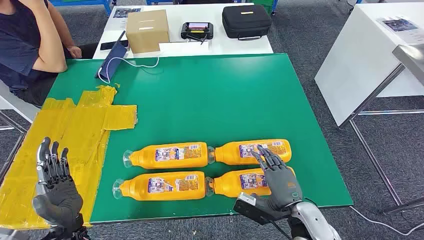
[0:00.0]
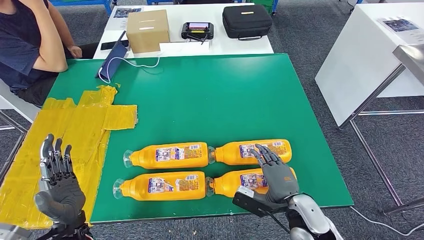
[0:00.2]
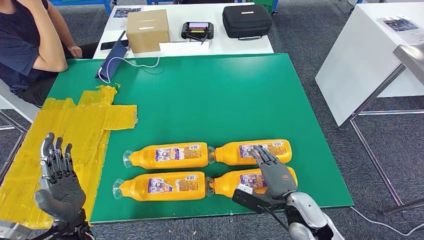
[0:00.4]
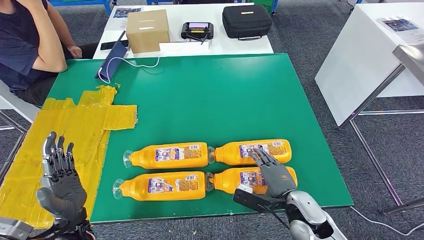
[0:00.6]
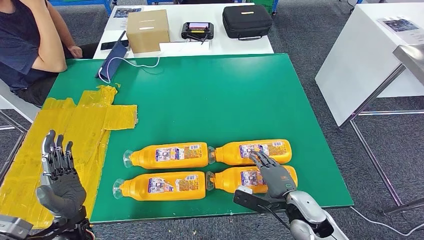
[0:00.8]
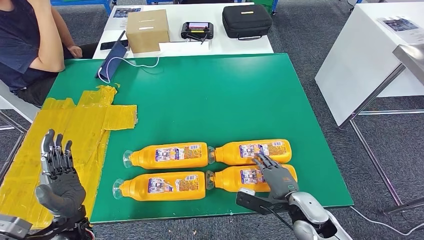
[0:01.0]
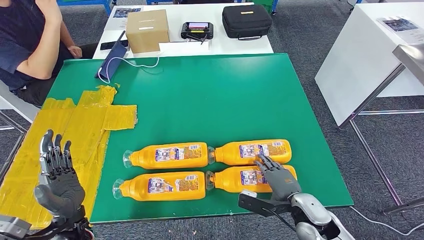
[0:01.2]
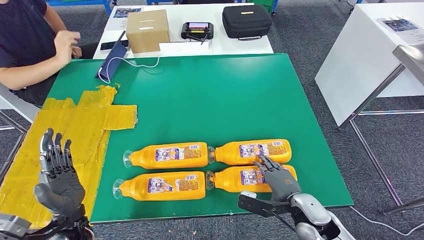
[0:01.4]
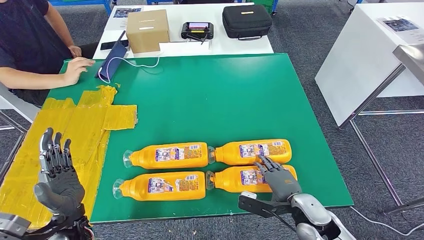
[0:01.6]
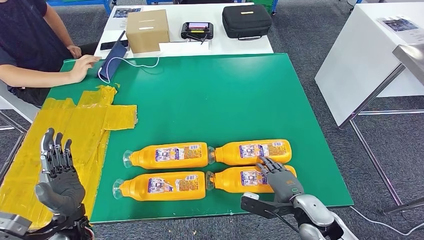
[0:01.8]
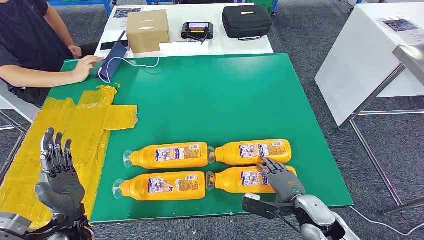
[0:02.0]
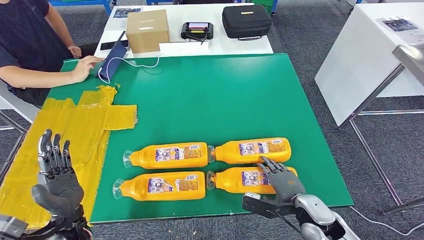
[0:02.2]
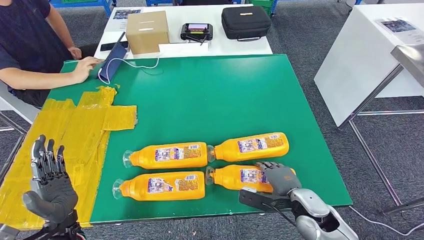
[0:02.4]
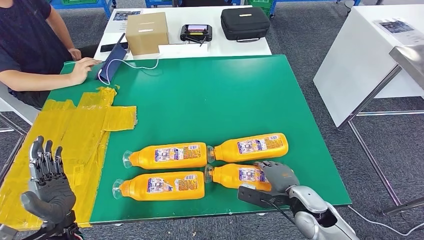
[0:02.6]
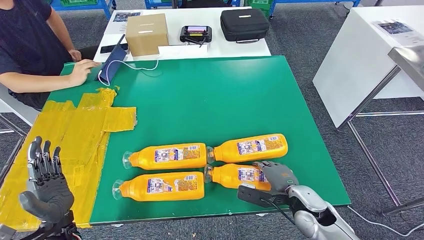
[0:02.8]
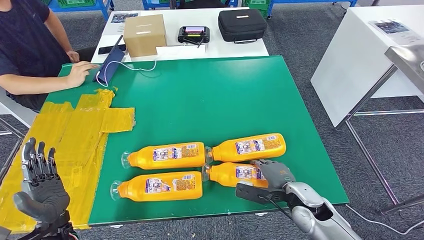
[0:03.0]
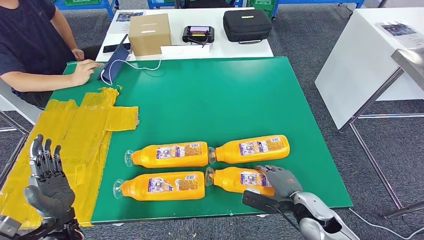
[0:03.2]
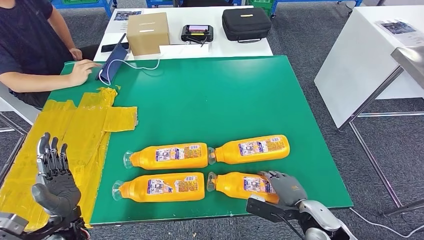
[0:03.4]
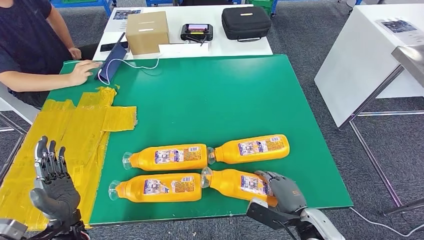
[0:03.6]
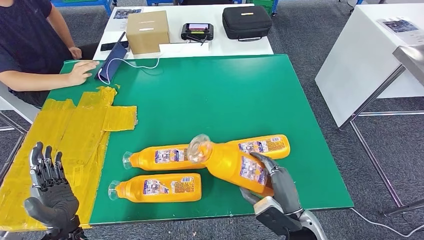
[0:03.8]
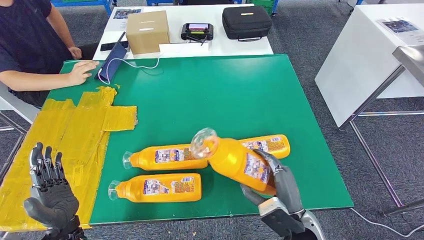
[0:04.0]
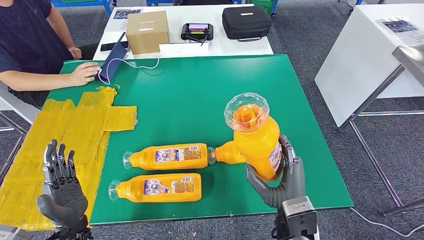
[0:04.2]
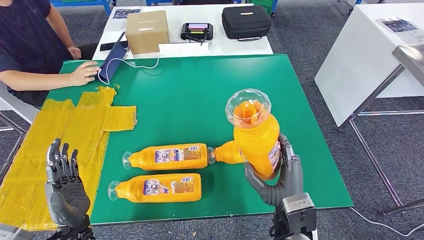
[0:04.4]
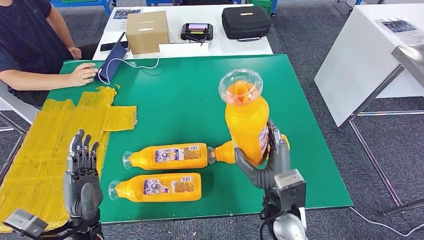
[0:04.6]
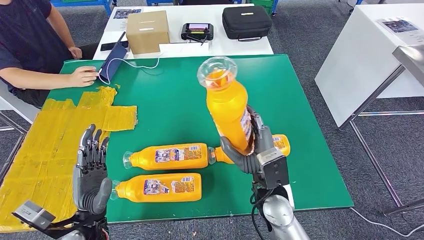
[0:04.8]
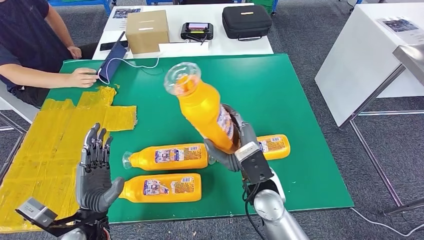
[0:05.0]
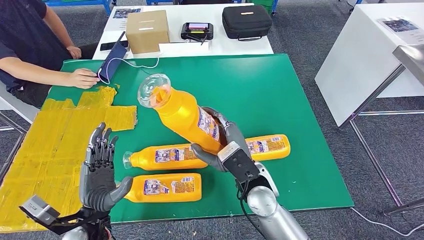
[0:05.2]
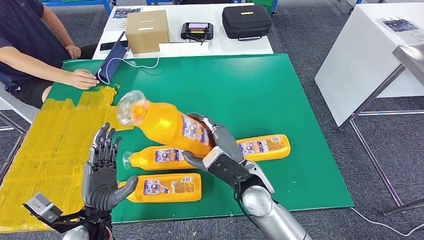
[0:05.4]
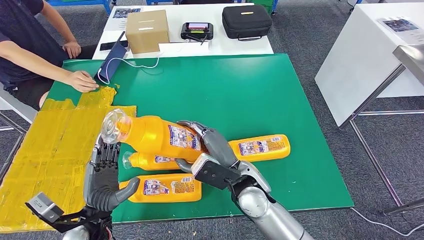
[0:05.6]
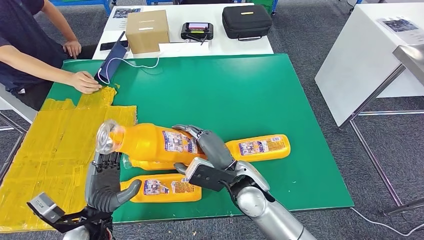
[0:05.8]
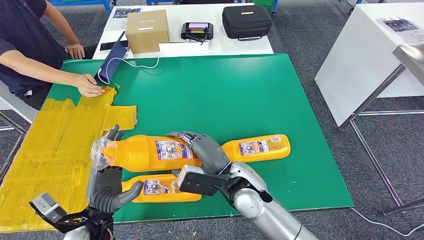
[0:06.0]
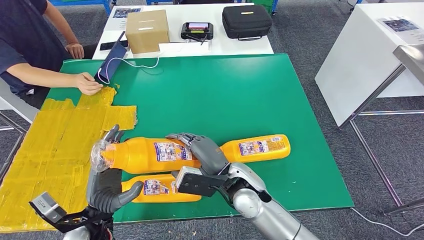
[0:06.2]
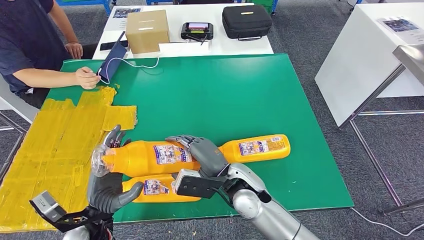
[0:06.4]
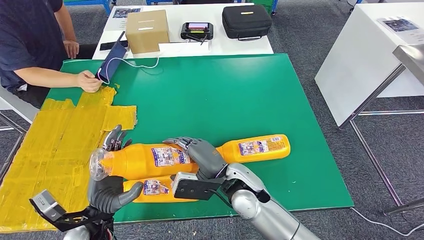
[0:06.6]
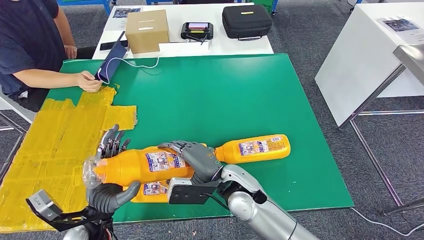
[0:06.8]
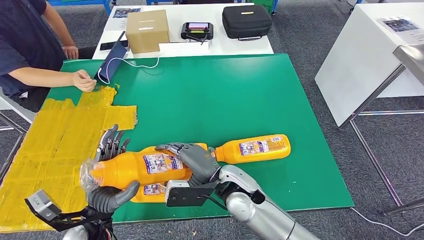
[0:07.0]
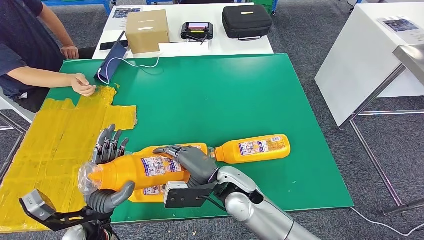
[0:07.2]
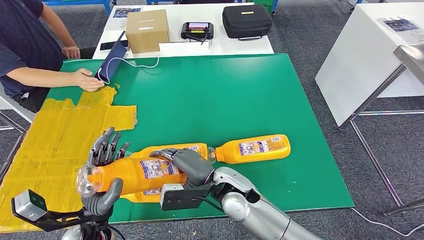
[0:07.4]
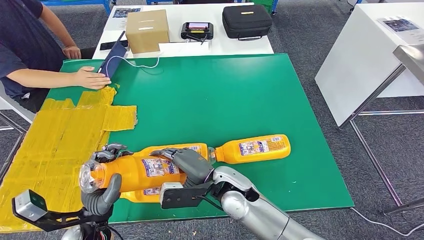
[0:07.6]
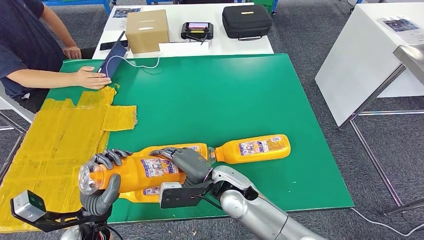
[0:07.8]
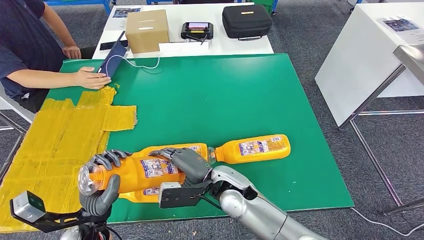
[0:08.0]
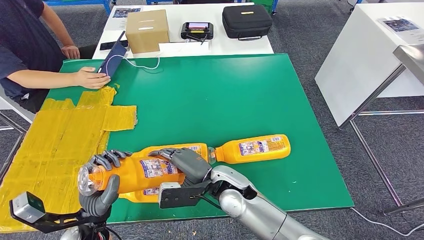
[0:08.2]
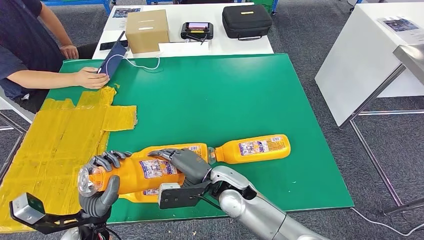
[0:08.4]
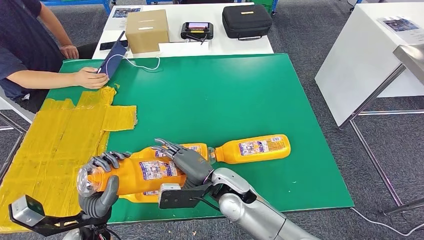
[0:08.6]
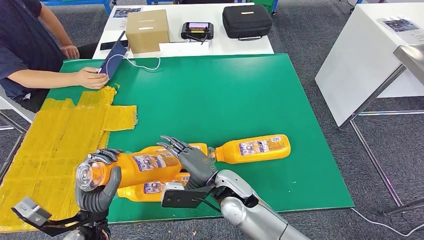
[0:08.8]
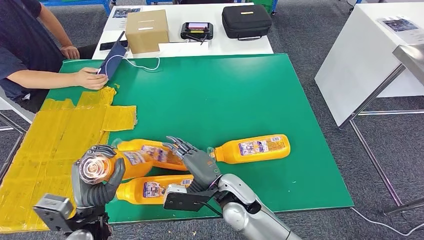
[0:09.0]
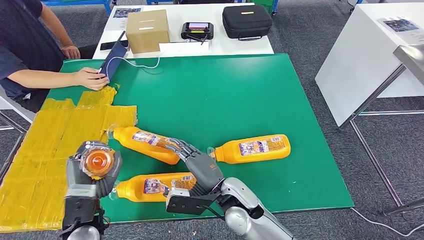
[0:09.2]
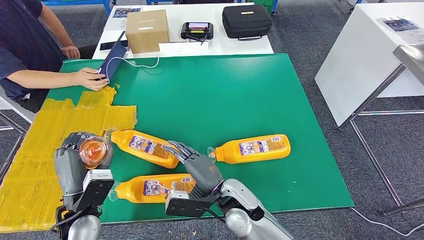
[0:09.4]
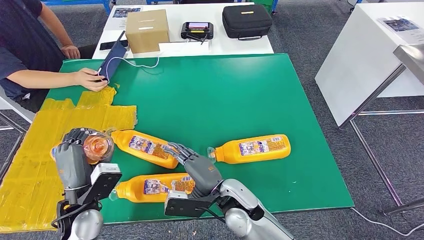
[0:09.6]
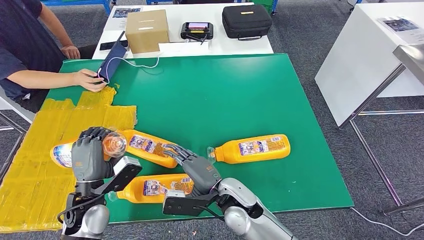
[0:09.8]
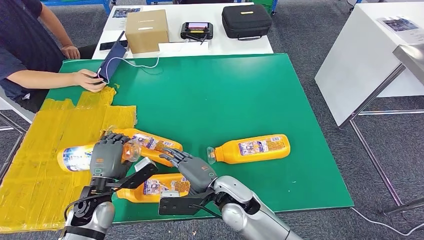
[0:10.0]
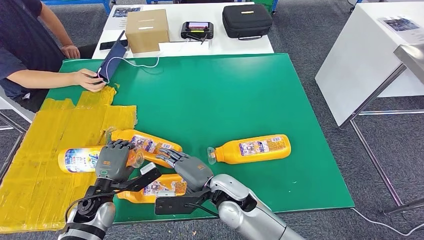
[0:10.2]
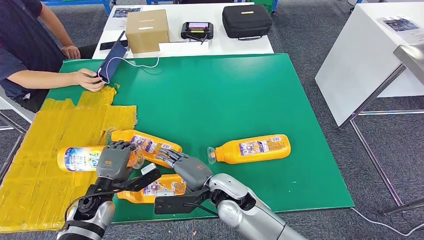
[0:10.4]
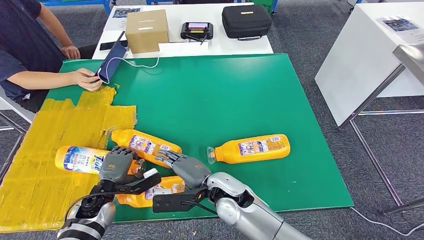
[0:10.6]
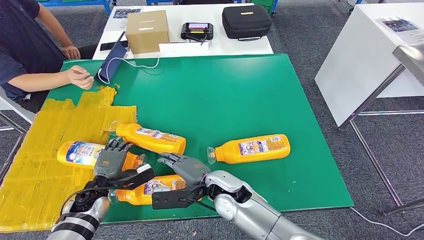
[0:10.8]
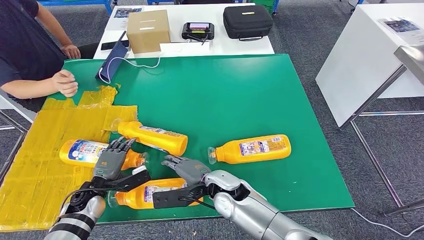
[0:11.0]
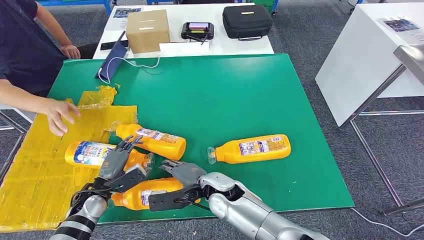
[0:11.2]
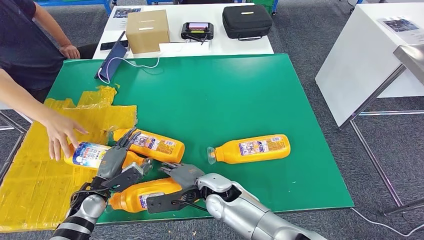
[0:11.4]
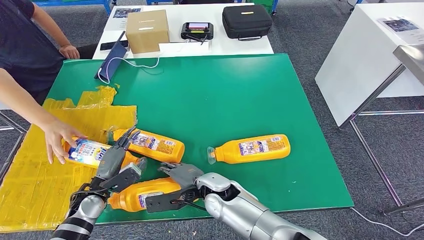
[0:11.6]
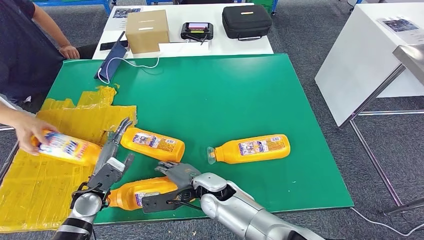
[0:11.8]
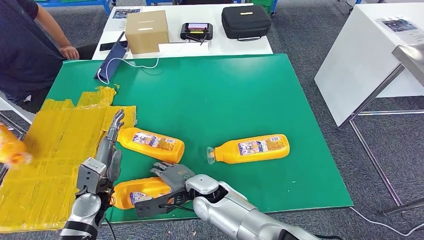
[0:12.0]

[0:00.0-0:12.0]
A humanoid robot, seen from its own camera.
Step, 0:00.0 to 0:04.0: Take the fast-moving consumer goods bottle from the table.
Step, 0:05.4 to 0:11.4: Flip the fast-moving consumer goods bottle to the front side.
0:06.0 to 0:07.6: The hands make only small movements.
0:09.0 to 0:10.4: The left hand is displaced forward and downward by approximately 10 cm.
0:10.4 to 0:12.0: The right hand heads to the left, covering about 5 cm.

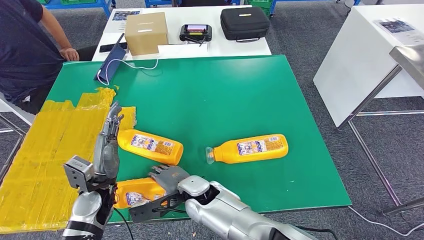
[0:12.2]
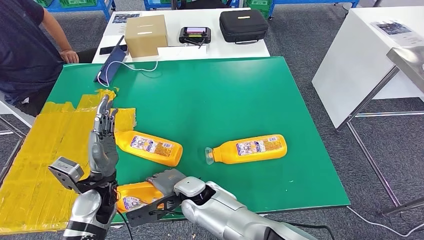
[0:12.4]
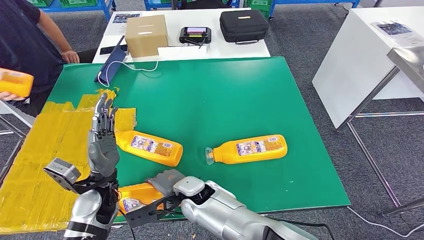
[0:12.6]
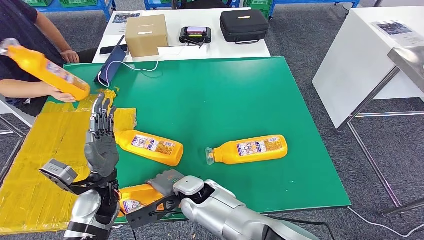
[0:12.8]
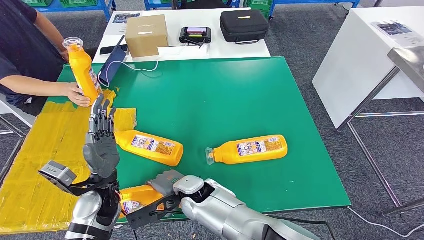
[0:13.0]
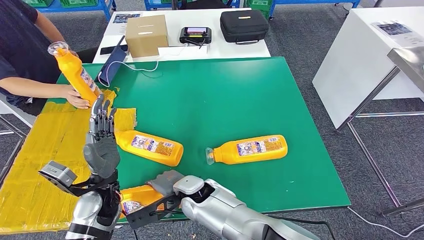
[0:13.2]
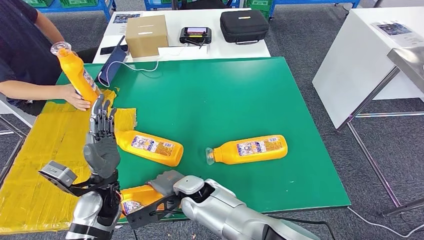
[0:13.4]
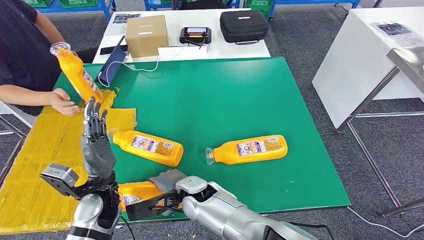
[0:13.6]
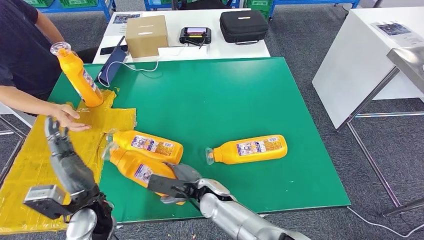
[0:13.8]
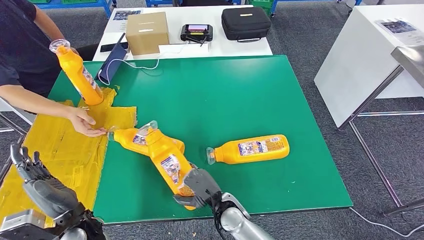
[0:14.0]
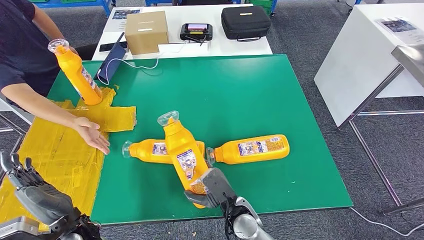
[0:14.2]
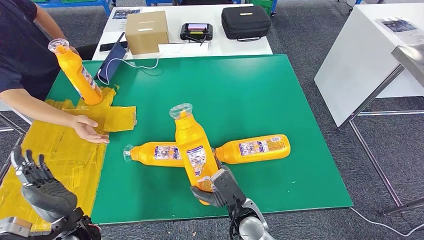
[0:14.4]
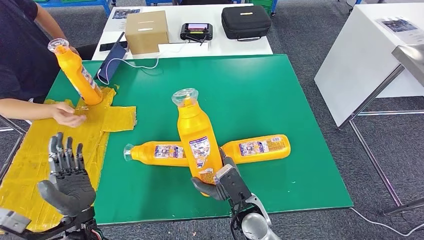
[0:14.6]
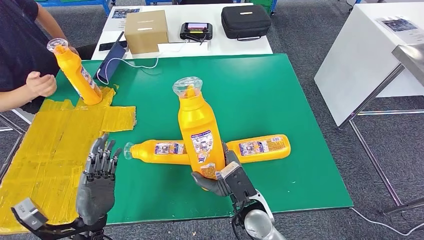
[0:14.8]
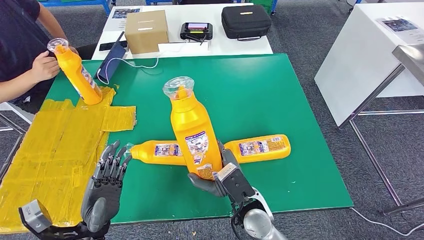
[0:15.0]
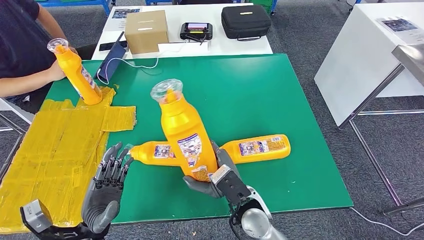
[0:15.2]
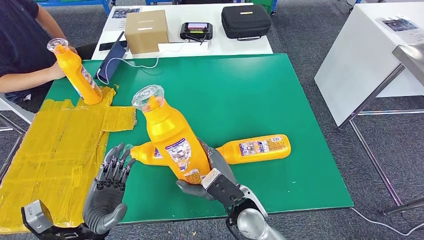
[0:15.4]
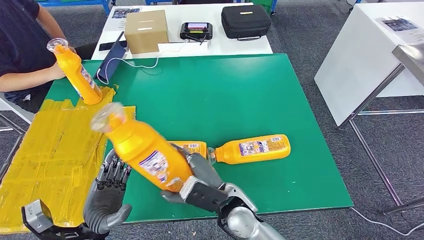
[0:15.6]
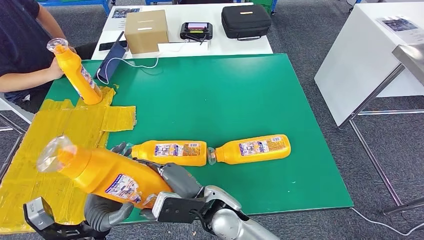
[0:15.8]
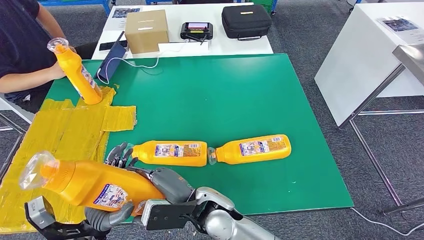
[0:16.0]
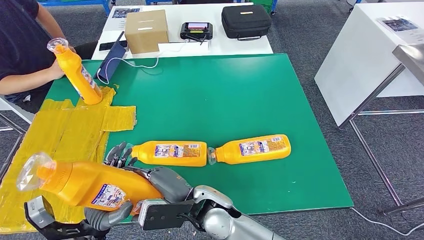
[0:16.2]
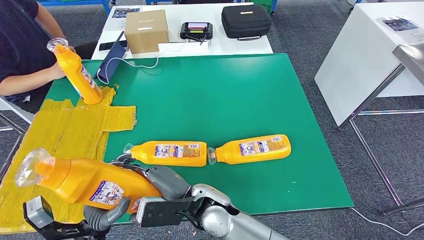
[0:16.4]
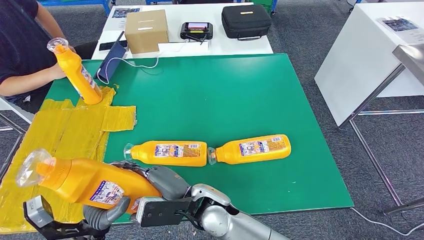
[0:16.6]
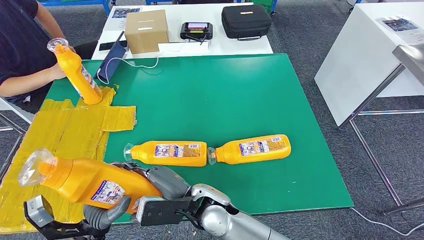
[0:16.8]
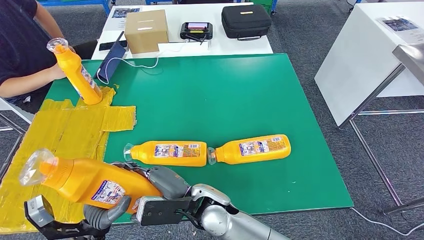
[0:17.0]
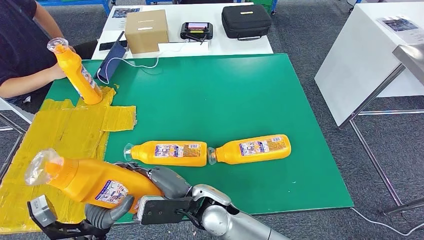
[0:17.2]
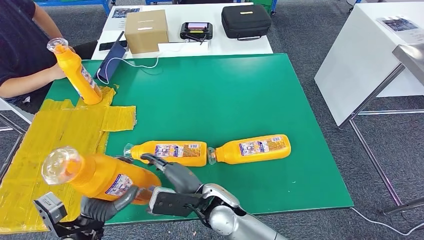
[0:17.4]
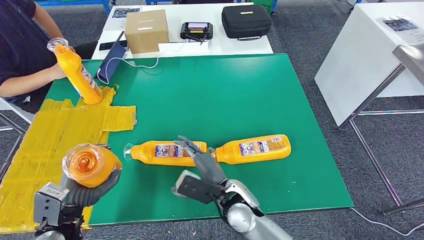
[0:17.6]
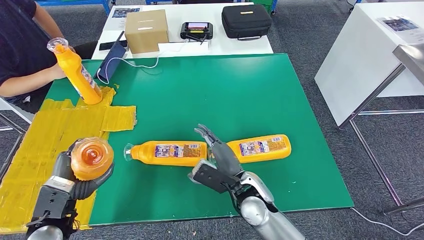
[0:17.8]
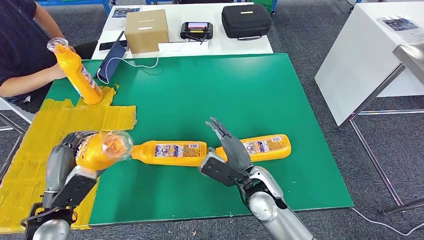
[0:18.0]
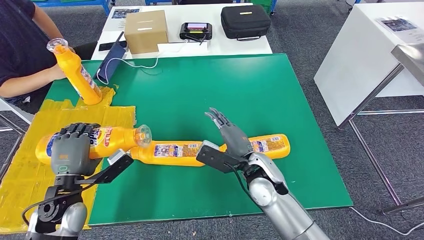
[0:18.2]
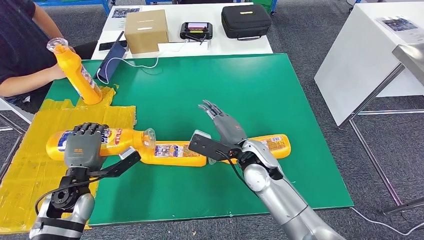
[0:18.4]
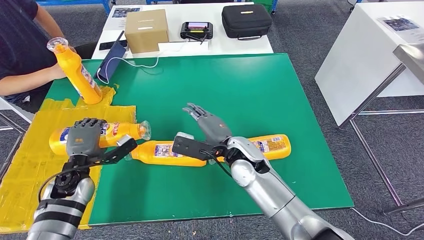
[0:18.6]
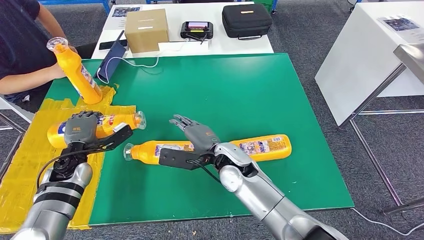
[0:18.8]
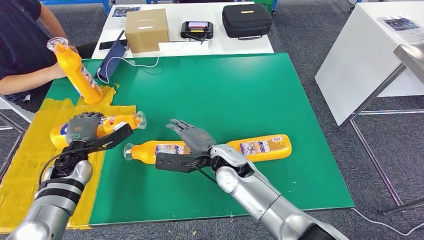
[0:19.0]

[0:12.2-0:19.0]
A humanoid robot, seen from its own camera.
Step, 0:13.2 to 0:15.0: Pick up the fast-moving consumer goods bottle from the table.
0:15.0 to 0:16.2: The right hand heads to the left, covering approximately 10 cm.
0:16.2 to 0:17.6: The left hand is displaced to the left by roughly 5 cm. Meanwhile the right hand goes some 5 cm to the right.
